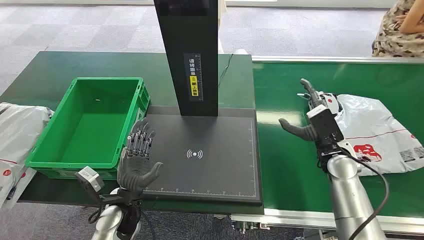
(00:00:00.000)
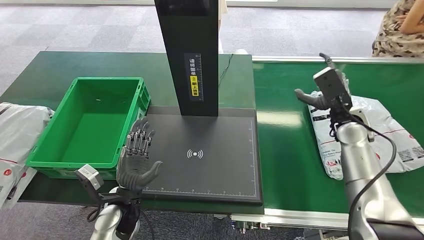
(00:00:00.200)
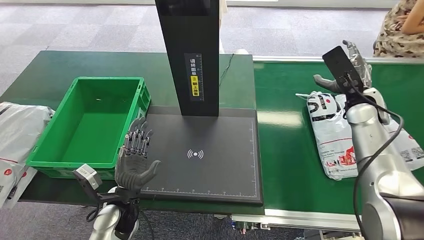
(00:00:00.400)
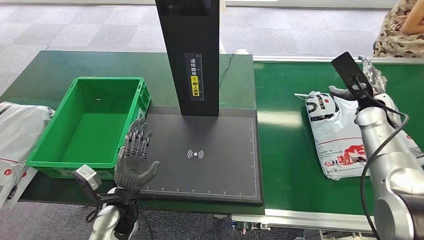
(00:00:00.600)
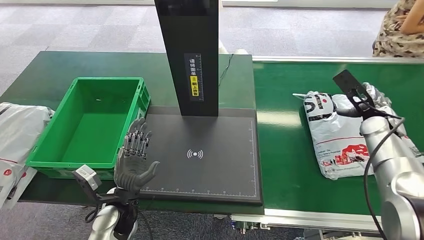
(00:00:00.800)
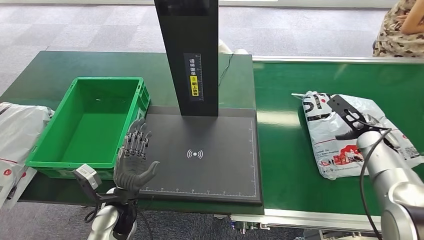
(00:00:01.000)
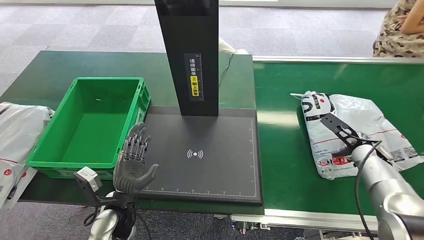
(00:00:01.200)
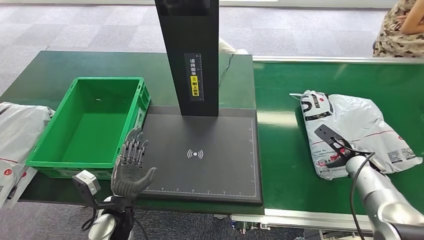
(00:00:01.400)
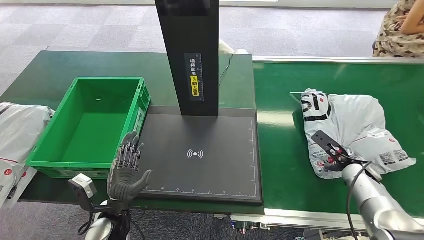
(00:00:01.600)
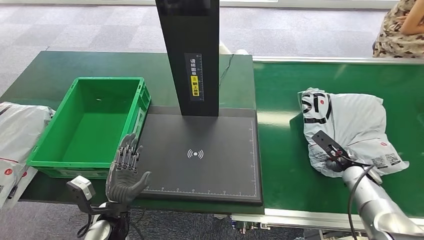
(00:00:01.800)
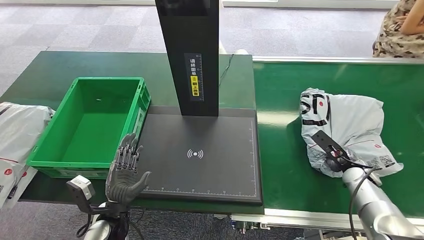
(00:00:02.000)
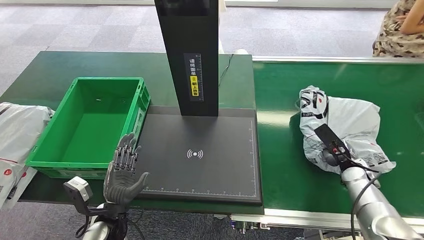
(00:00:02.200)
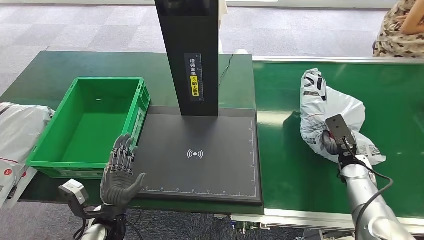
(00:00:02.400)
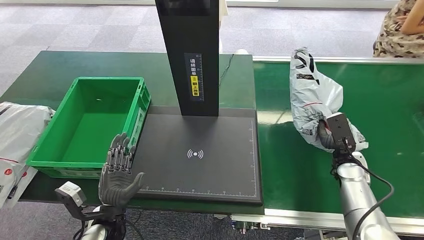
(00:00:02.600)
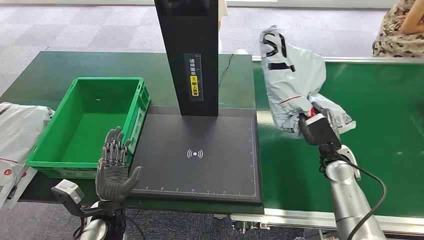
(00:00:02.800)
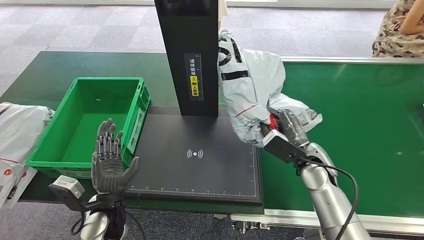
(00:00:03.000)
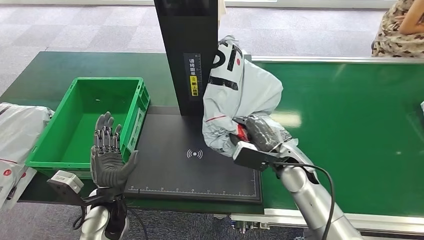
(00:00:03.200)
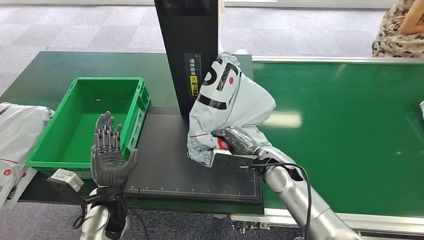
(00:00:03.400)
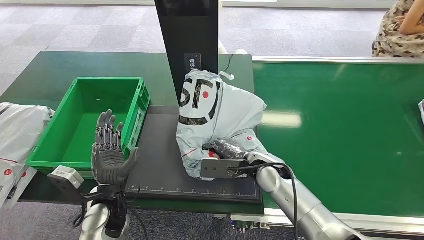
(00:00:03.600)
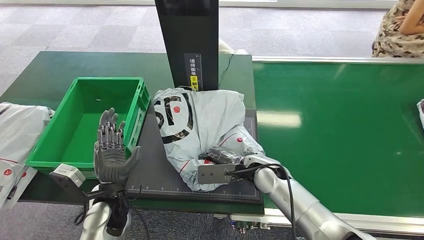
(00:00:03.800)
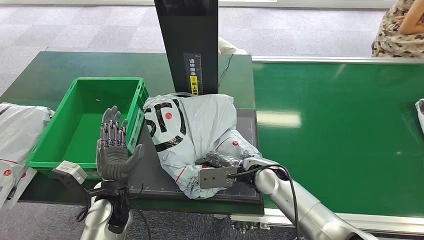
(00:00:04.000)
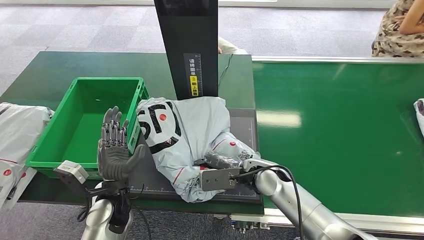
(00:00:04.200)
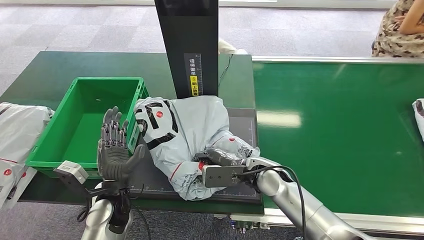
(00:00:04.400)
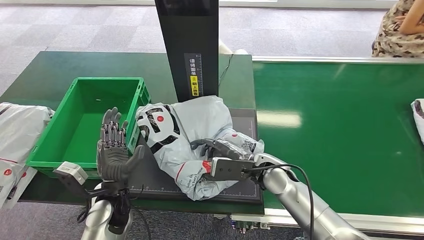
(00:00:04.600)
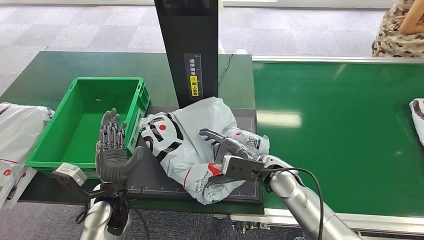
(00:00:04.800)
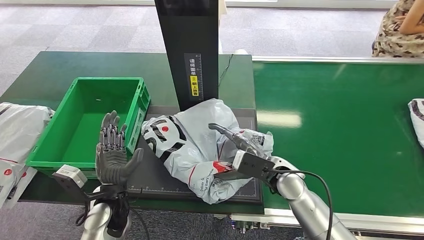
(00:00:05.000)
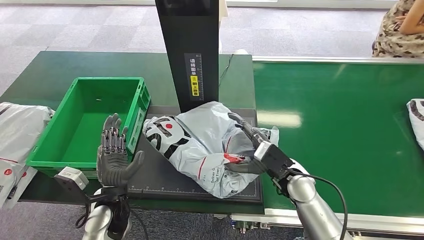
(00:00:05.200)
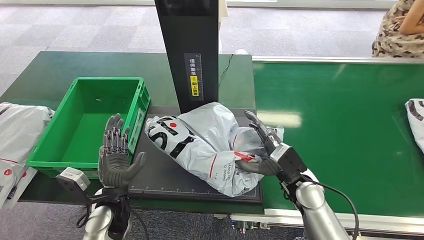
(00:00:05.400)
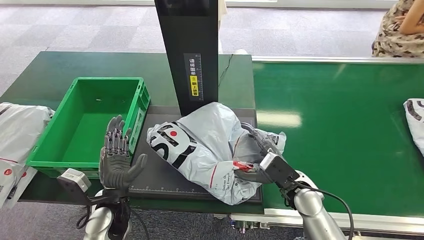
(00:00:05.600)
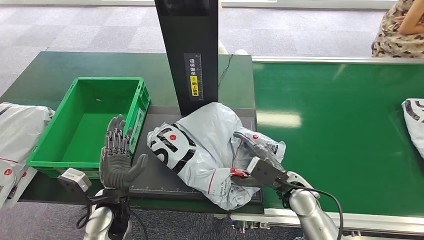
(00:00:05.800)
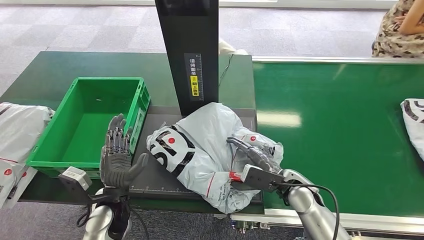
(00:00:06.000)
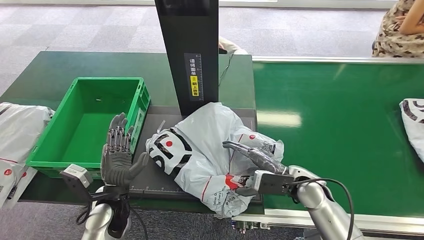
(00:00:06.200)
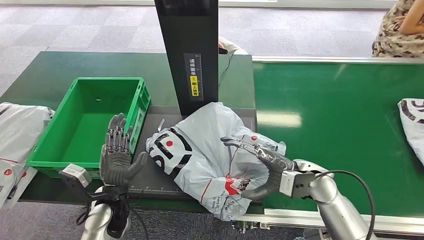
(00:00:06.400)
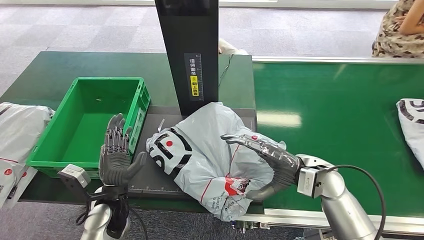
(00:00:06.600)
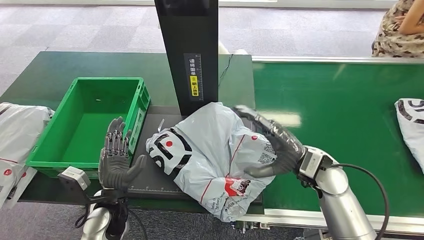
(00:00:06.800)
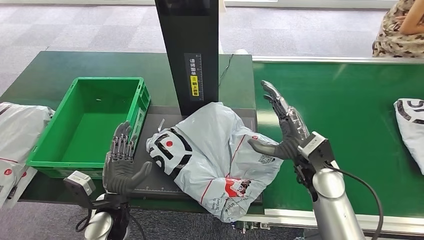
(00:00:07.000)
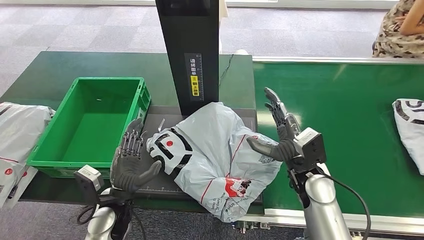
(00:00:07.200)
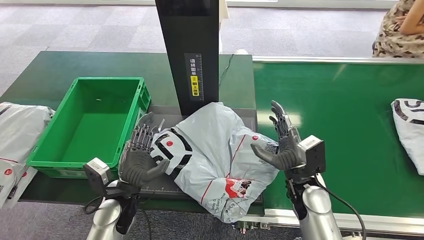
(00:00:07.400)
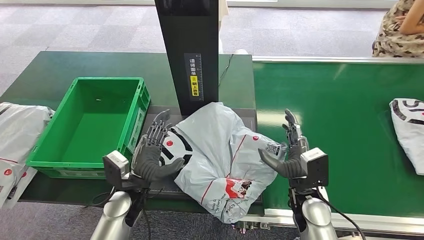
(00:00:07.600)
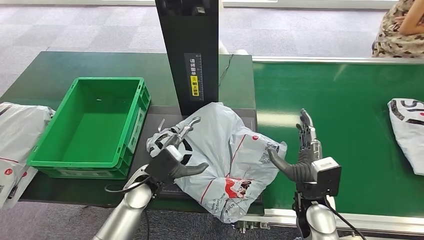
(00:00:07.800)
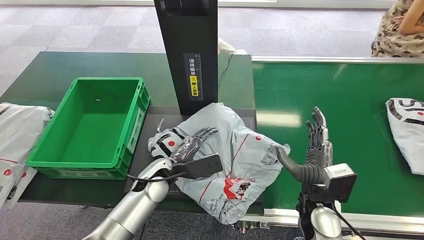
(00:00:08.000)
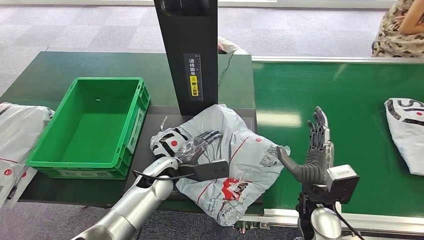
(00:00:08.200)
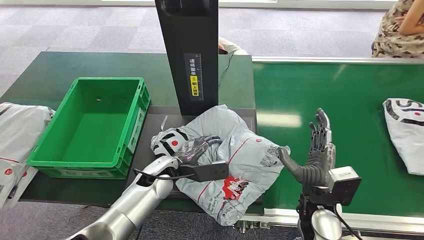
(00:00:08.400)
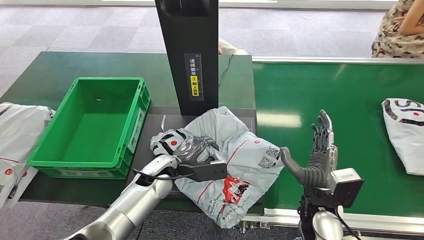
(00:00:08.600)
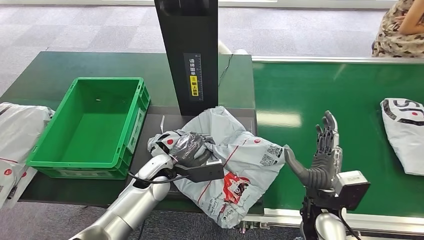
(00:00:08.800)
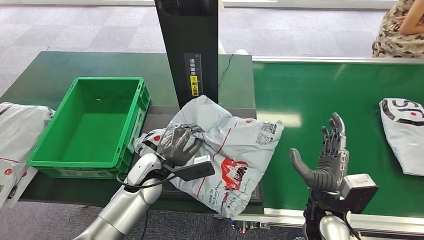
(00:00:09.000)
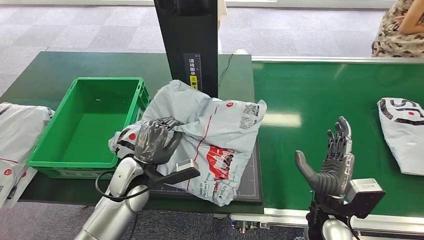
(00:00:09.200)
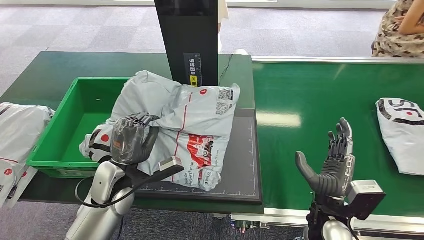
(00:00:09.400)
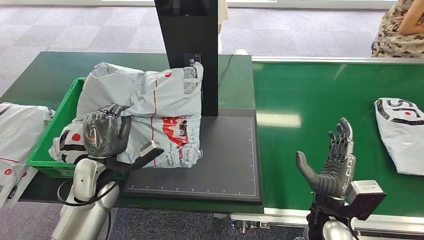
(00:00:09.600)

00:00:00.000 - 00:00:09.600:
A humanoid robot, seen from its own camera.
Step, 00:00:00.000 - 00:00:02.600: Pick up the package from the conveyor belt.
Step, 00:00:02.800 - 00:00:07.000: Place the package onto the inbound machine.
Step, 00:00:07.400 - 00:00:09.600: Pick up the package from the inbound machine.
00:00:04.800 - 00:00:06.400: The right hand shifts approximately 10 cm to the right.
00:00:06.400 - 00:00:08.000: The right hand is displaced backward by about 5 cm, and goes upward and returns, some 5 cm each way; the left hand is displaced to the right and forward by about 10 cm.

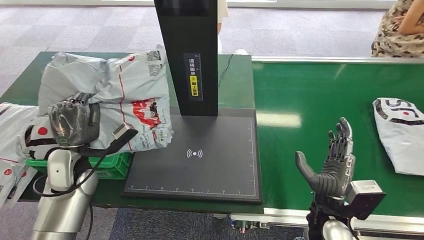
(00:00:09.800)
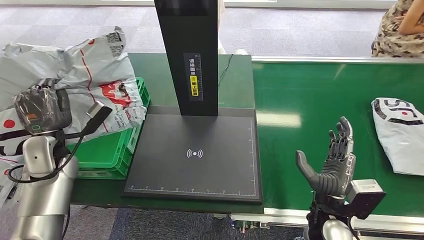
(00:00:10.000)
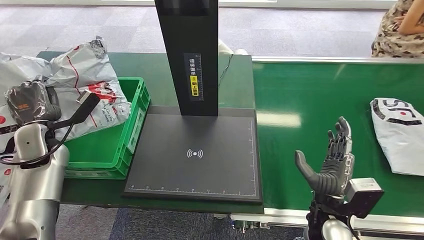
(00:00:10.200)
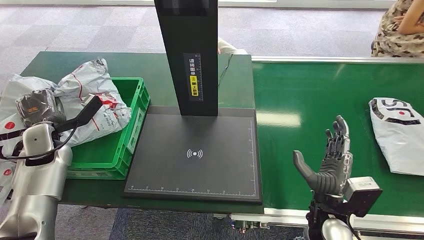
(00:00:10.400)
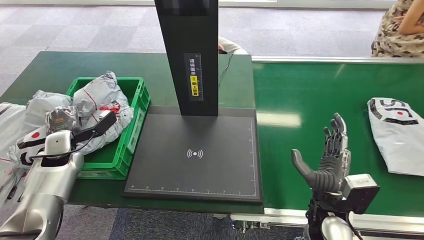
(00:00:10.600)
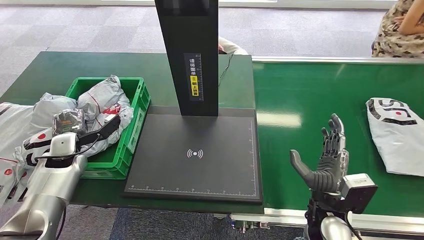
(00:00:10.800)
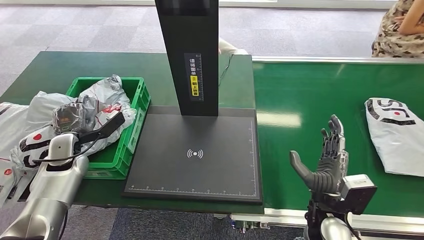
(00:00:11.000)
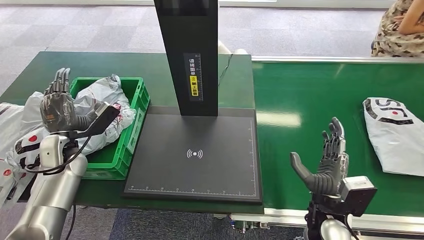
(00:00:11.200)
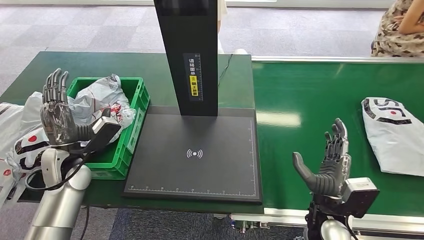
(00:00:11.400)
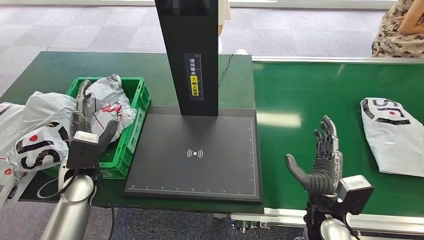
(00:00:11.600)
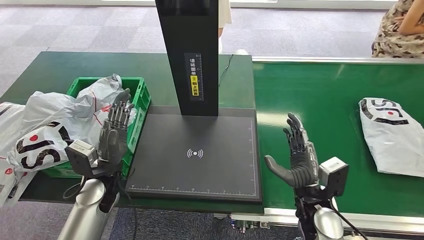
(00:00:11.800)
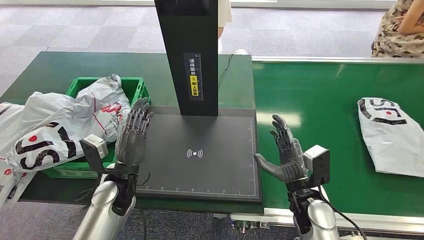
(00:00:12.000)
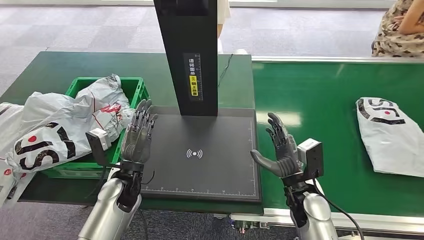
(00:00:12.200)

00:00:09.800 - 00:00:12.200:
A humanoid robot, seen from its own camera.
Step, 00:00:09.800 - 00:00:12.000: Place the package into the parcel locker.
